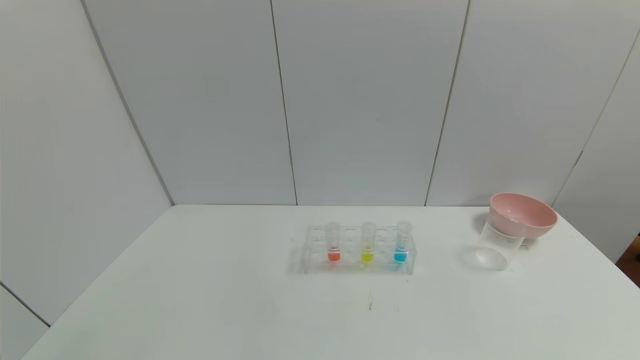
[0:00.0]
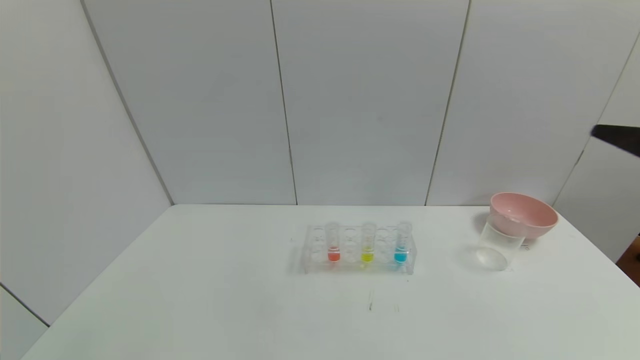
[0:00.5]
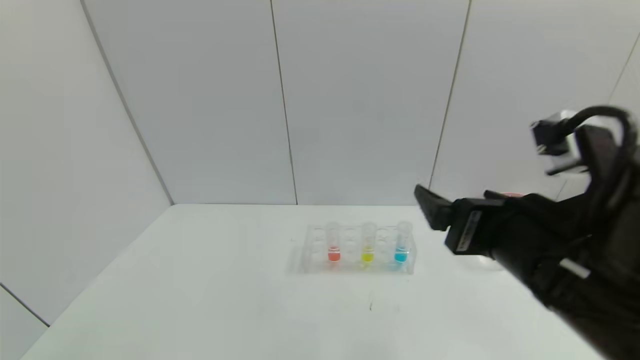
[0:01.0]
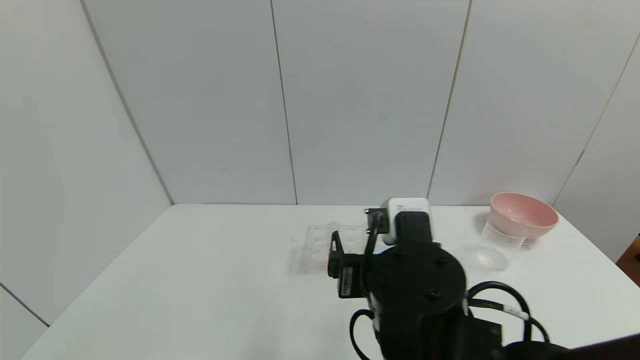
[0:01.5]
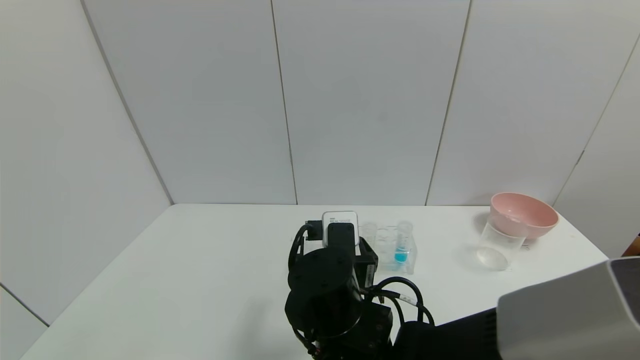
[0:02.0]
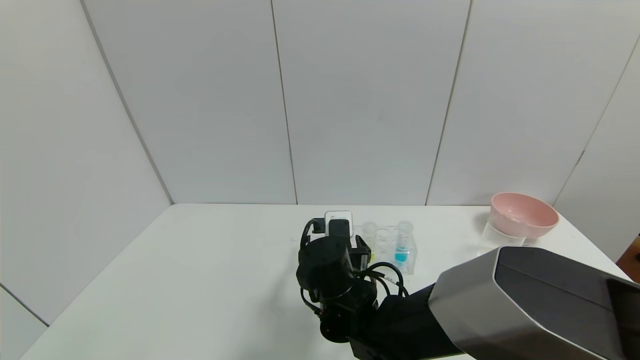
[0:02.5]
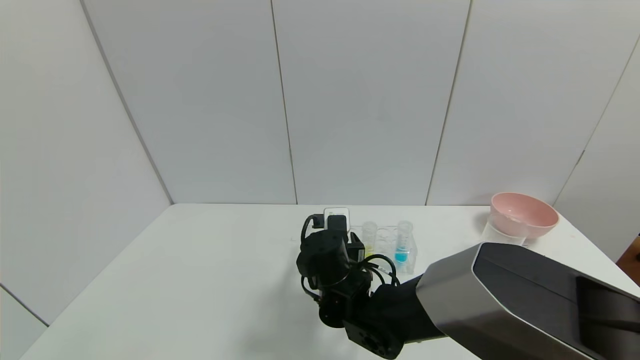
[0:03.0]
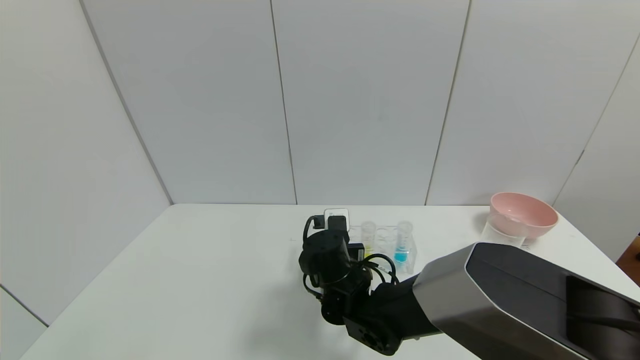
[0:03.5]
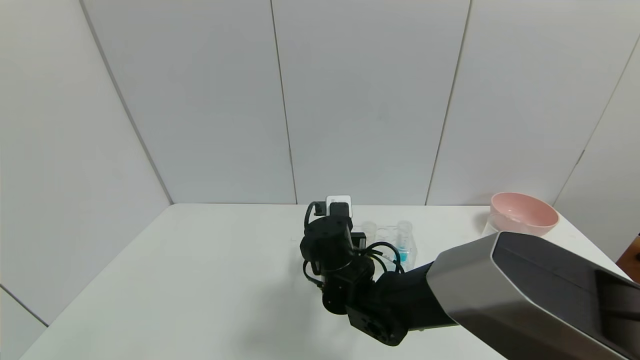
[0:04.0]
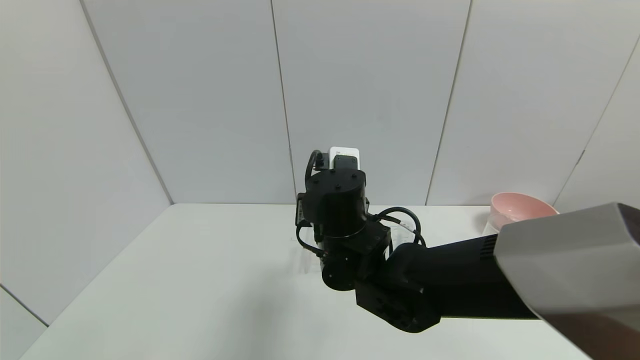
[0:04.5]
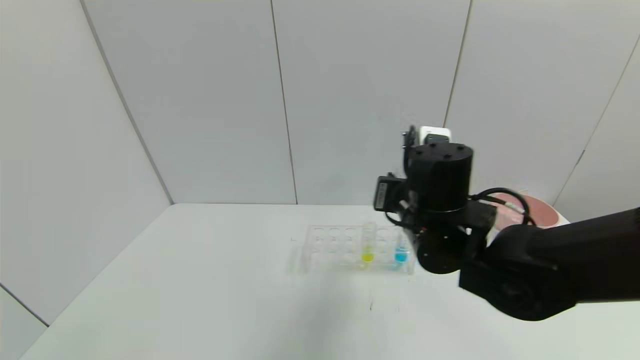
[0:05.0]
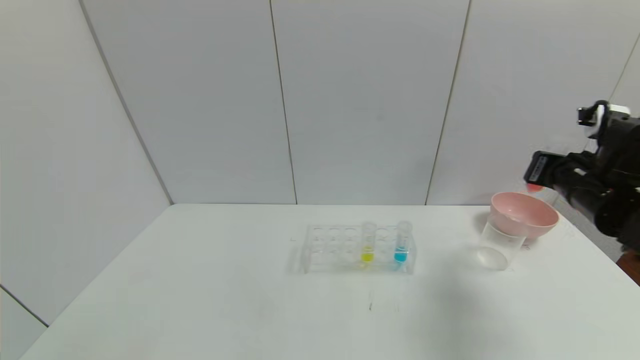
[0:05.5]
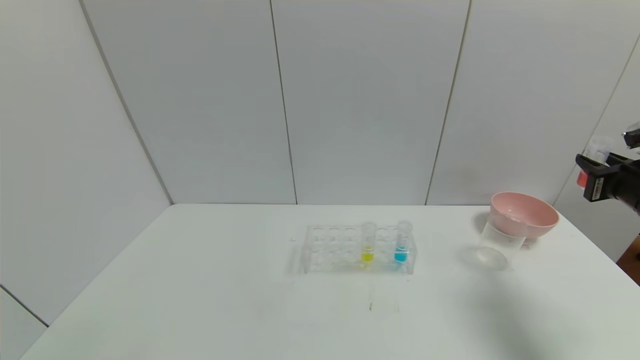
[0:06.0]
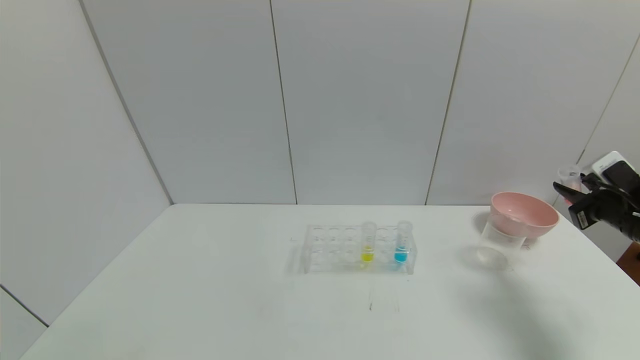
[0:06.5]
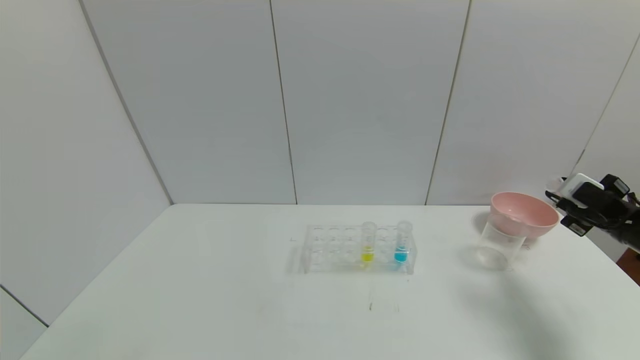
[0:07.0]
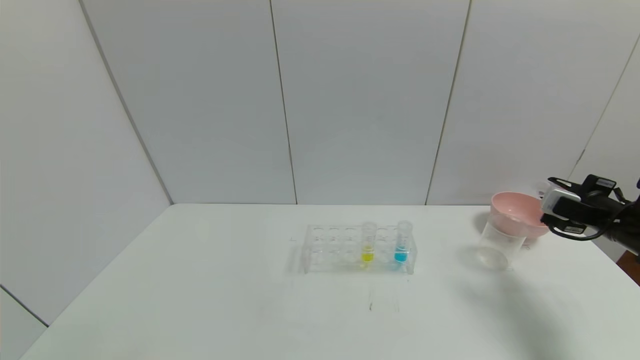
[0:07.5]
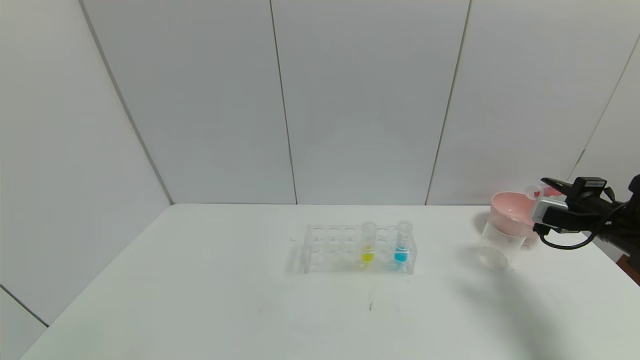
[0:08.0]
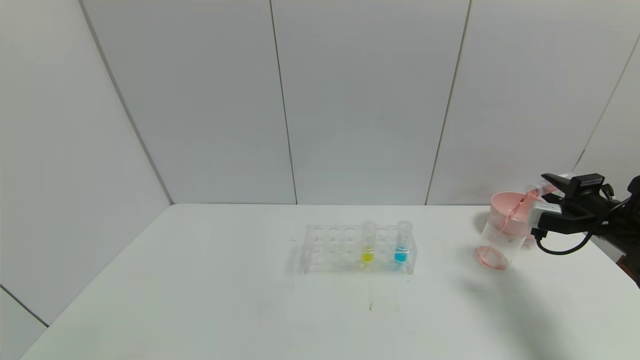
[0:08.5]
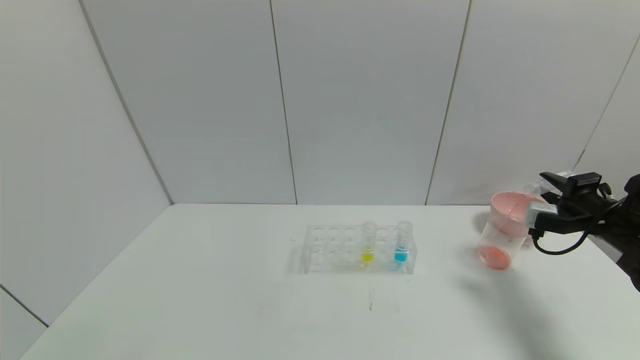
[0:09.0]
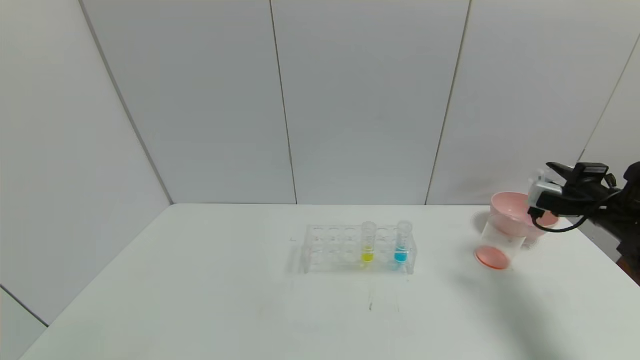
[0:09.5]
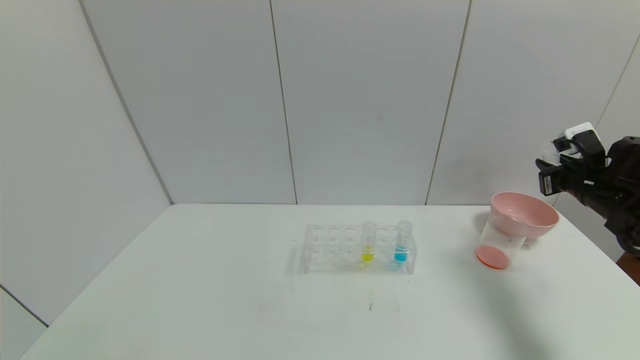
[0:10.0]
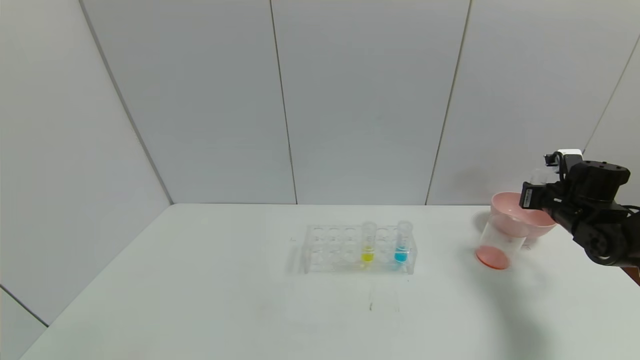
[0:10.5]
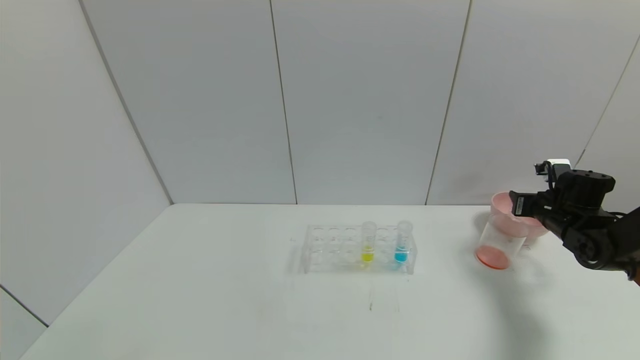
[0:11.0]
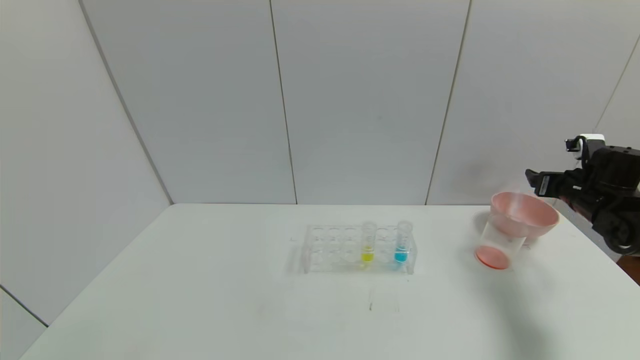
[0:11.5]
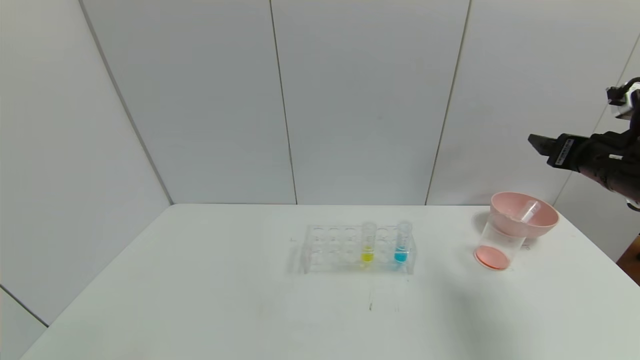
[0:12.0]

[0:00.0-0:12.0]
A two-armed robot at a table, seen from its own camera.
Task of the whole recording: pick up the test tube with yellow pigment and the test tube with red pigment by grippers and pour them into the beaker.
Step, 0:00.0 to 0:03.0: Grasp the red reagent with the right gripper.
Step, 0:03.5 to 0:09.0: Pour the red reagent into the graduated cylinder with the right gripper.
Step, 0:09.5 to 0:11.0: Place the test tube into the pink bowl with the right gripper.
0:00.0 to 0:02.0: The right gripper travels to the left and forward by about 40 cm.
0:02.0 to 0:04.0: The right gripper goes some 10 cm forward, and closes its fingers.
0:04.0 to 0:06.0: The right gripper is displaced to the right by about 40 cm.
0:06.0 to 0:08.0: The right gripper goes about 5 cm downward.
0:08.0 to 0:10.0: The right gripper shifts by roughly 5 cm.
0:10.0 to 0:12.0: The right gripper travels upward, to the left and backward by some 10 cm, and opens up.

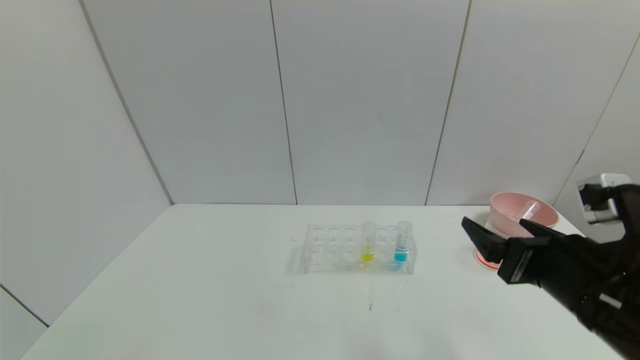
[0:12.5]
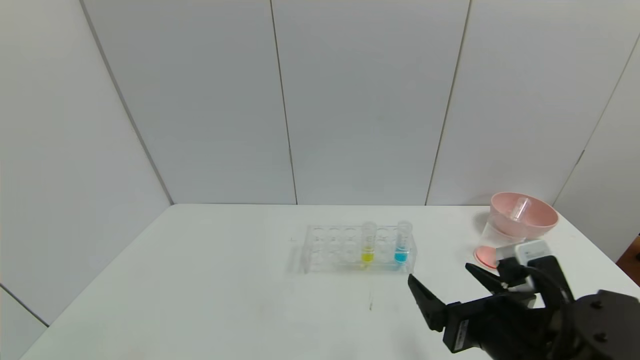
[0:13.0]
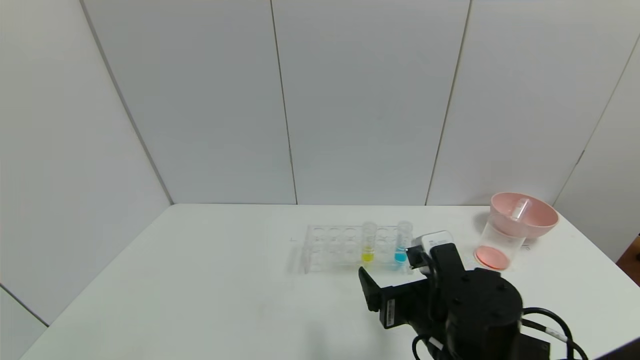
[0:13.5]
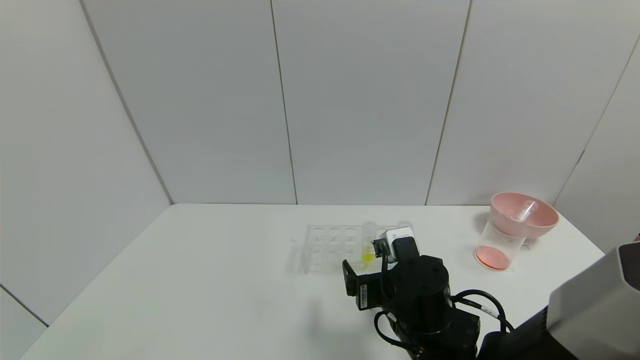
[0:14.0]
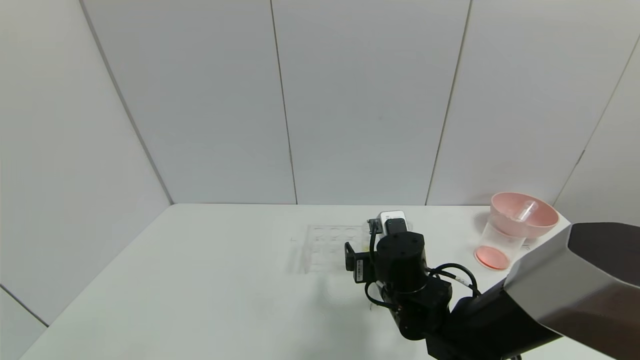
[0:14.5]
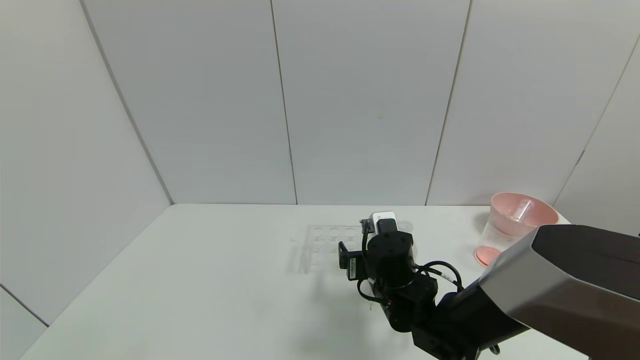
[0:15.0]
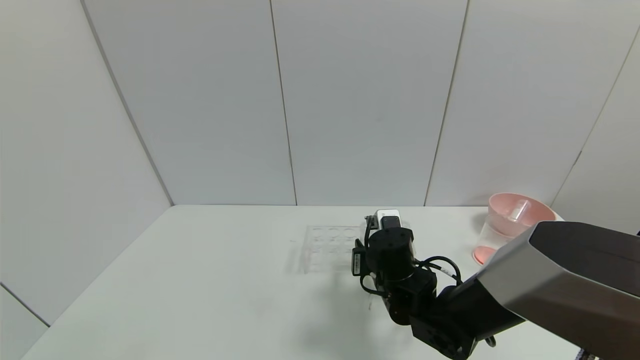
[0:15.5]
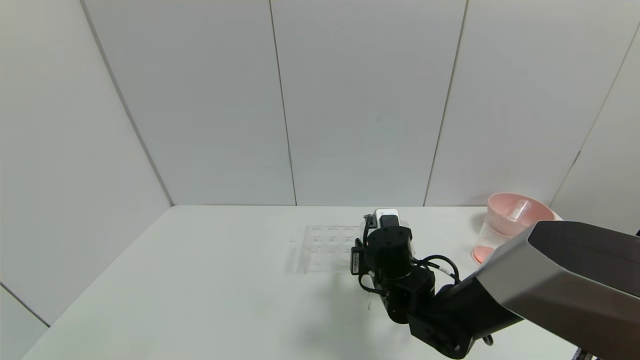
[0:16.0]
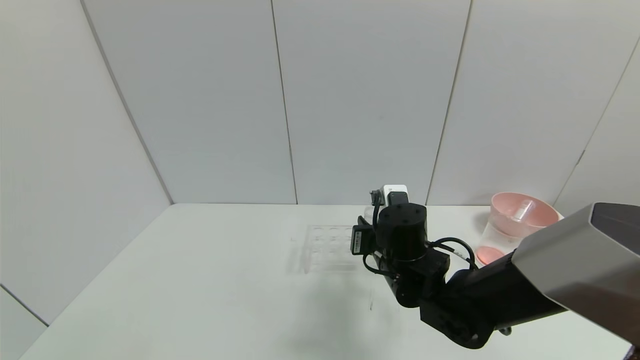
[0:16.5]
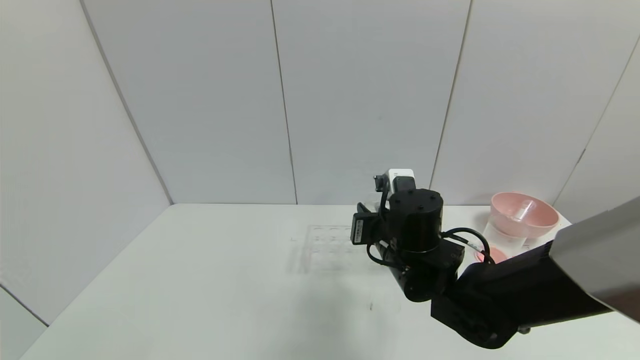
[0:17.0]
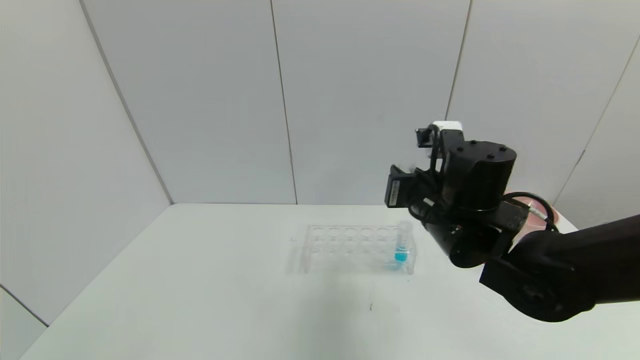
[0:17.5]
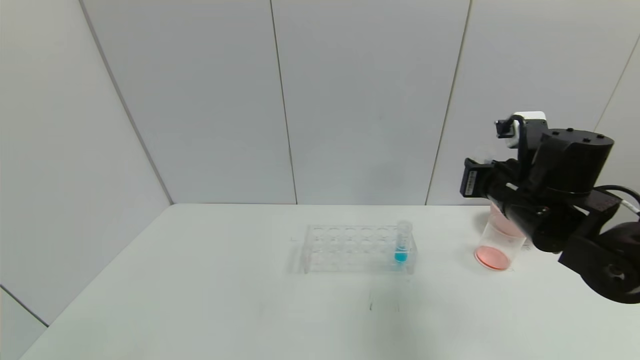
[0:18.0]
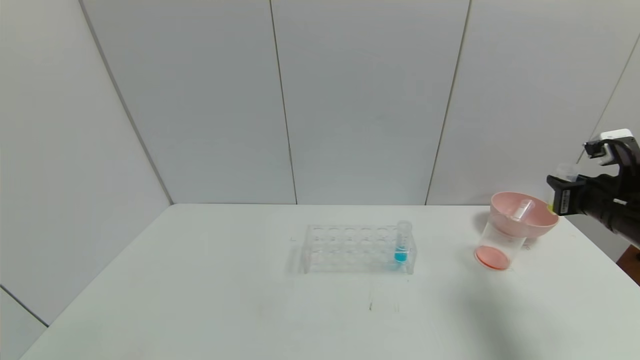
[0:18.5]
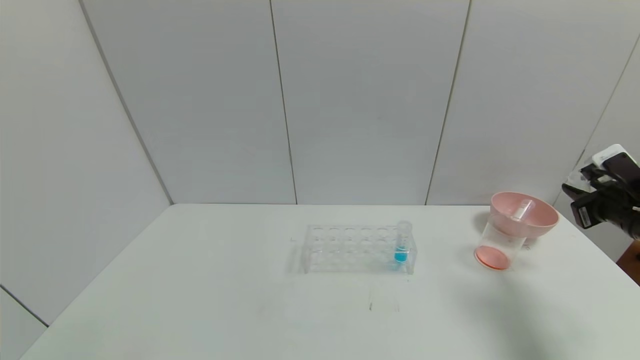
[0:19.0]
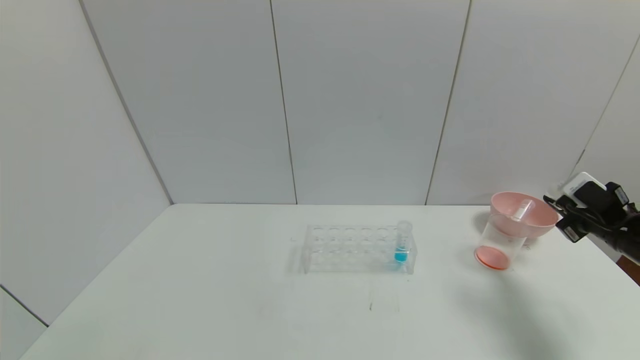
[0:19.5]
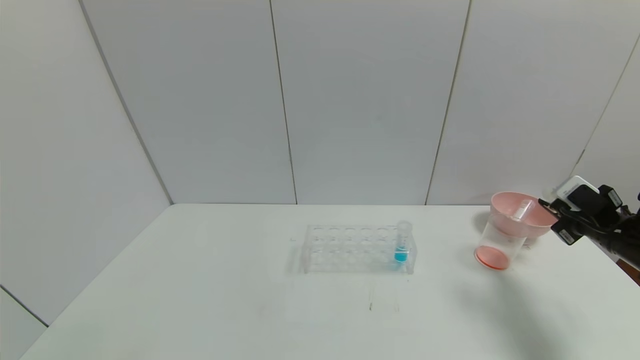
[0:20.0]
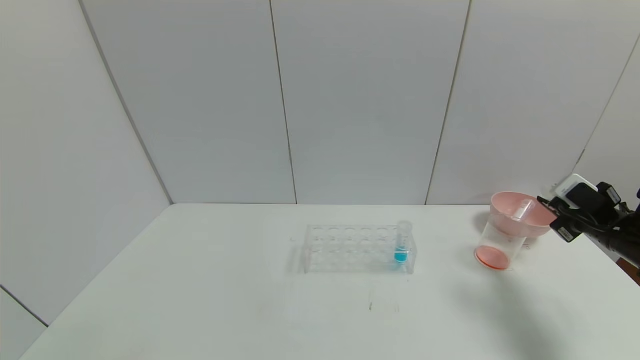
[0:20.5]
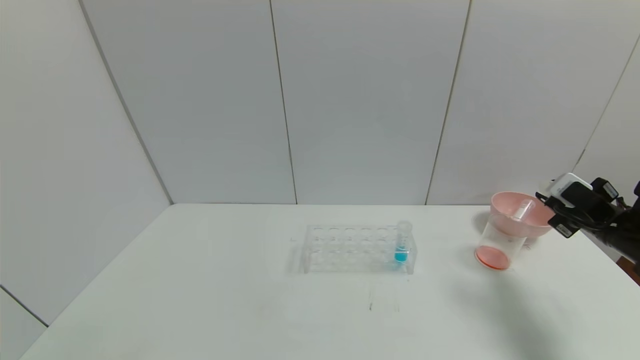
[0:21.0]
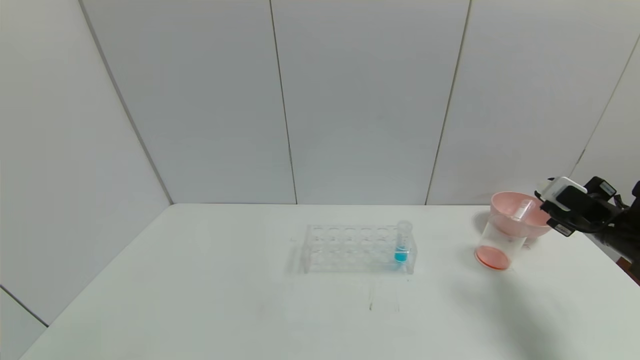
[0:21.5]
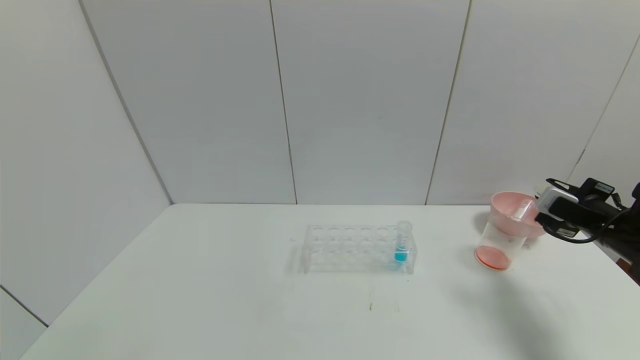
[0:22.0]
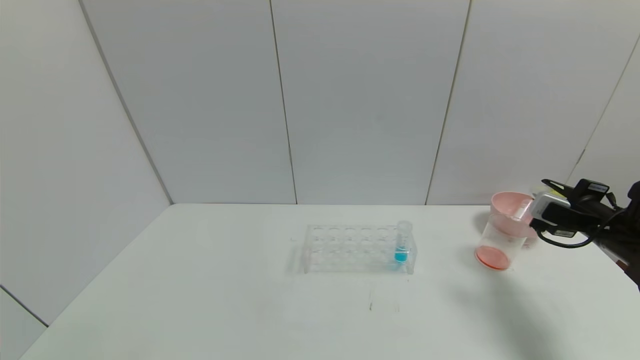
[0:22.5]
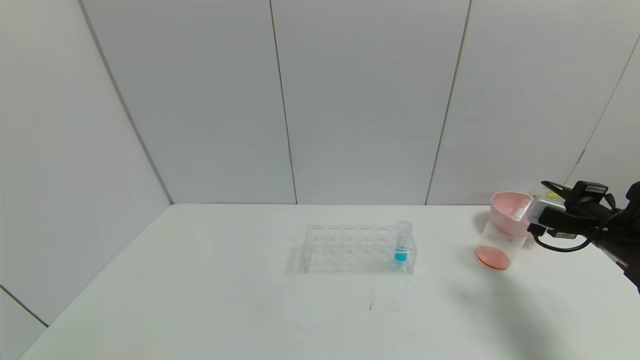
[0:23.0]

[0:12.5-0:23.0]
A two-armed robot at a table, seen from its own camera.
Task of the whole recording: pick up the test tube with yellow pigment and the test tube with red pigment by grippers and pour them into the beaker.
Step, 0:12.5 to 0:16.0: Grasp the yellow reagent with the right gripper.
0:12.5 to 0:14.5: The right gripper travels to the left, downward and forward by roughly 20 cm.
0:14.5 to 0:16.5: The right gripper closes up.
0:16.5 to 0:19.0: The right gripper is displaced to the right by some 35 cm.
